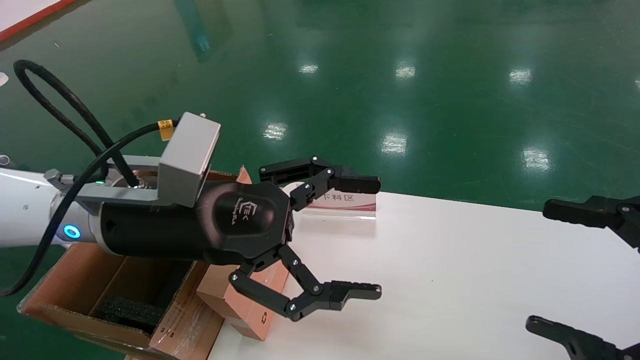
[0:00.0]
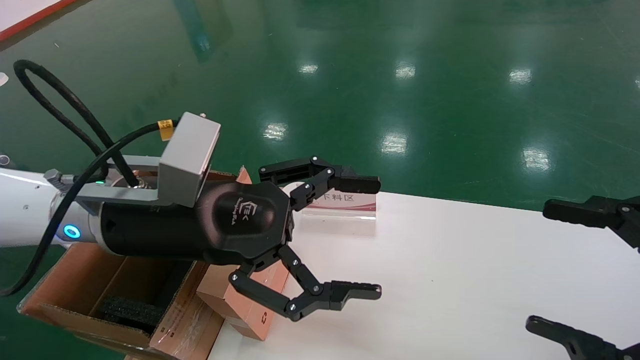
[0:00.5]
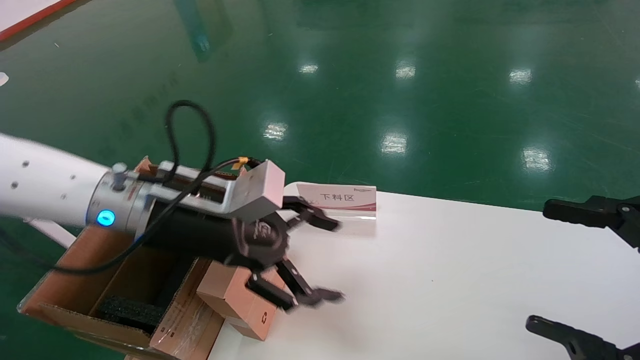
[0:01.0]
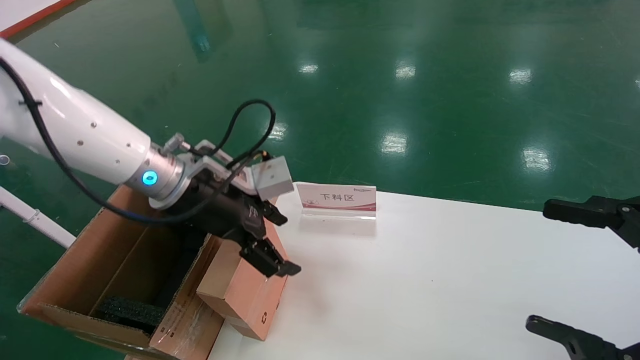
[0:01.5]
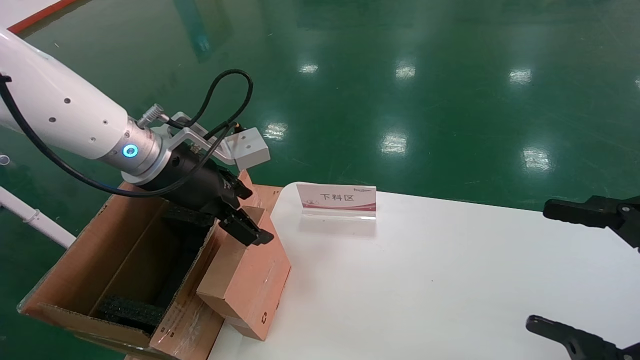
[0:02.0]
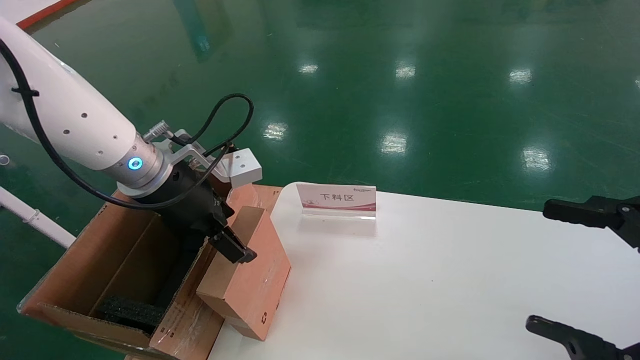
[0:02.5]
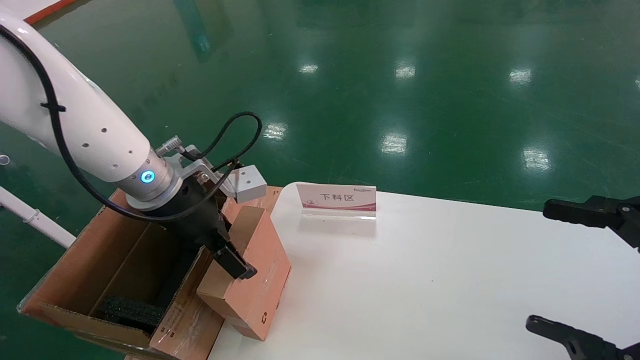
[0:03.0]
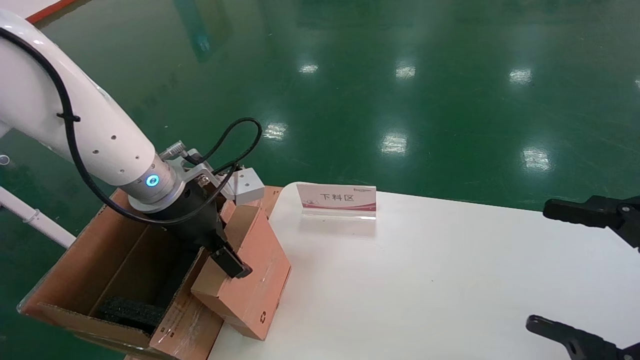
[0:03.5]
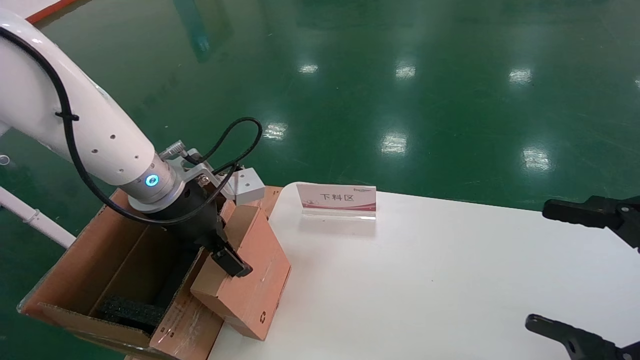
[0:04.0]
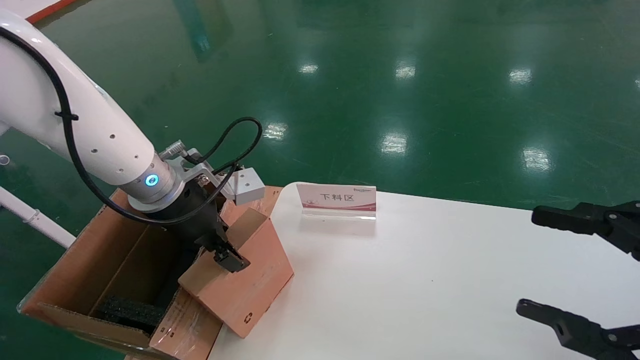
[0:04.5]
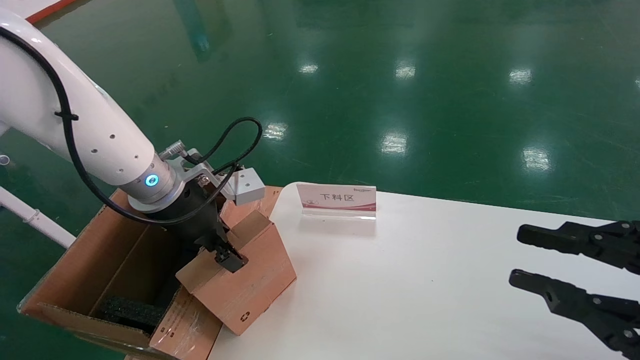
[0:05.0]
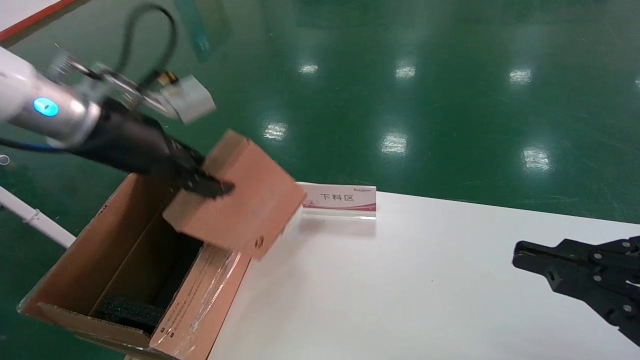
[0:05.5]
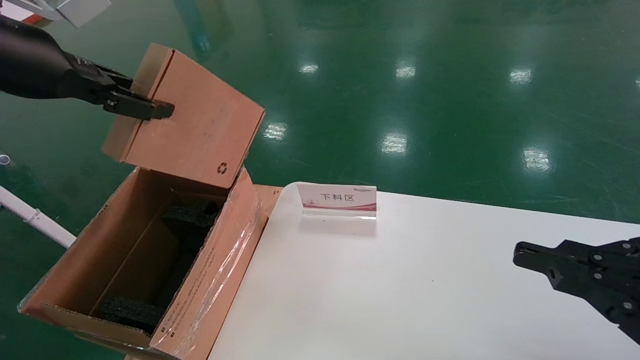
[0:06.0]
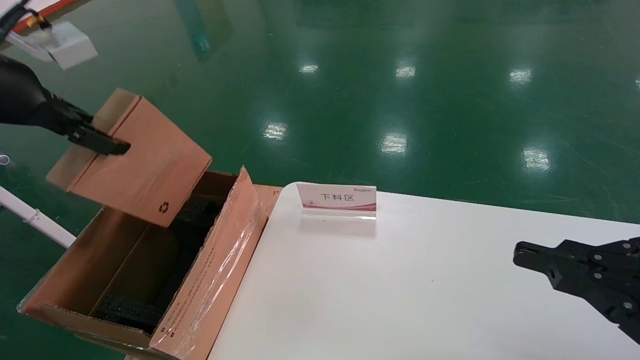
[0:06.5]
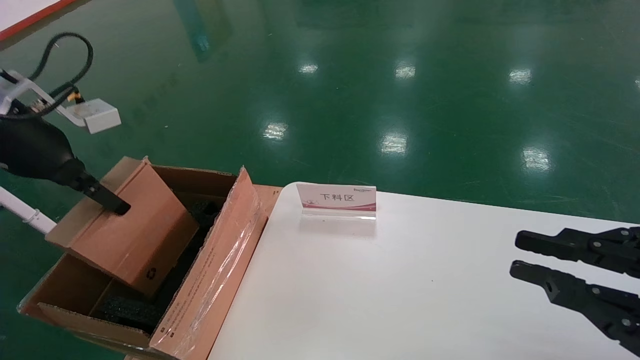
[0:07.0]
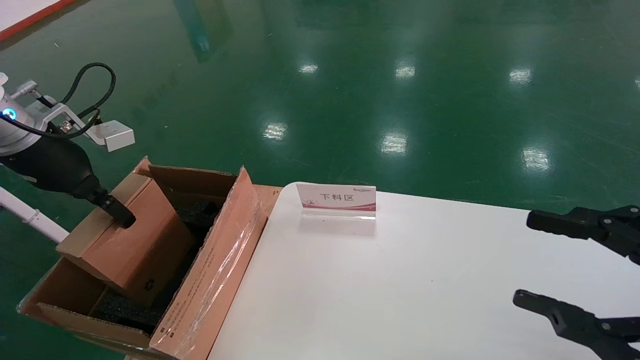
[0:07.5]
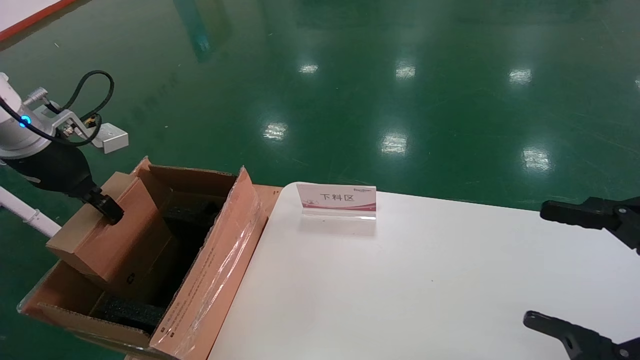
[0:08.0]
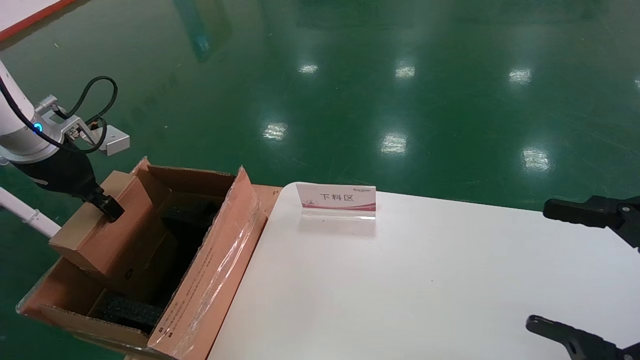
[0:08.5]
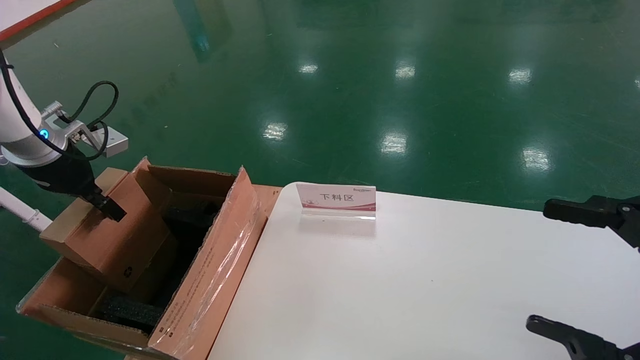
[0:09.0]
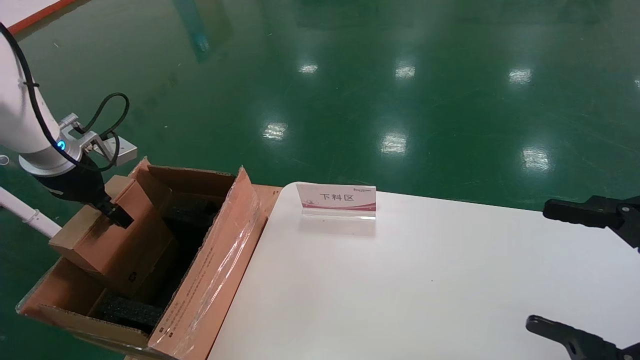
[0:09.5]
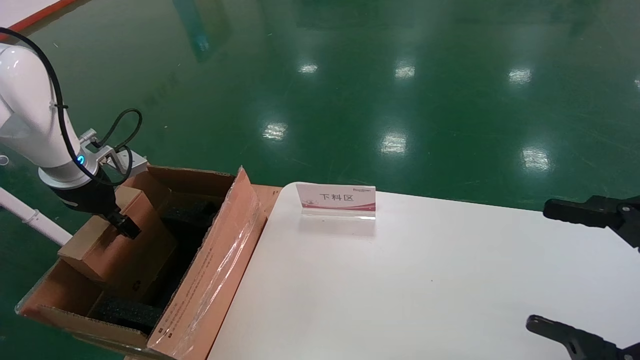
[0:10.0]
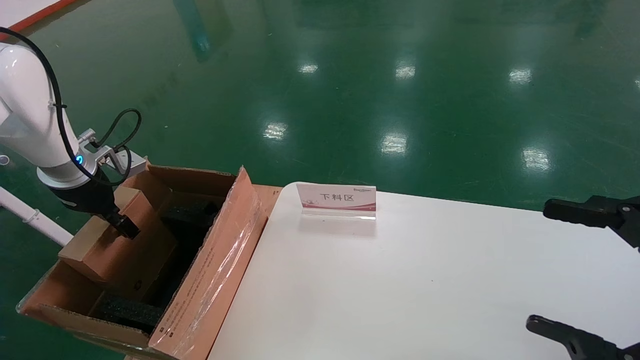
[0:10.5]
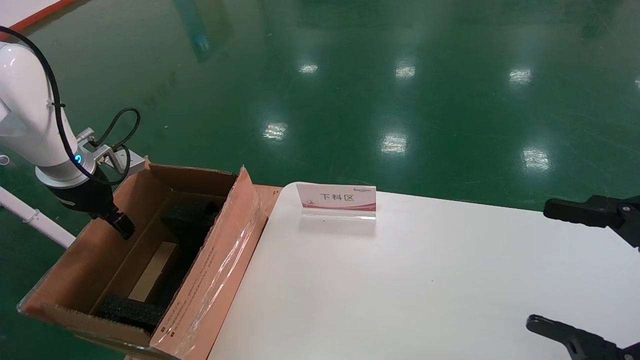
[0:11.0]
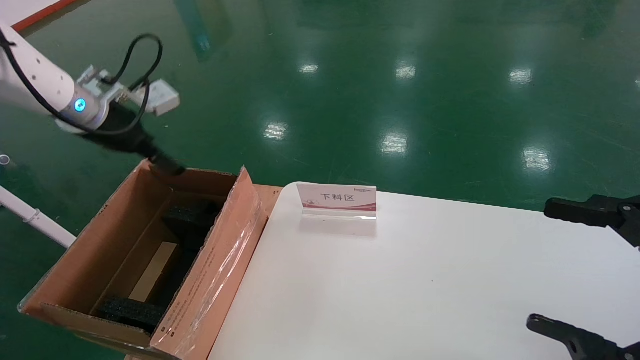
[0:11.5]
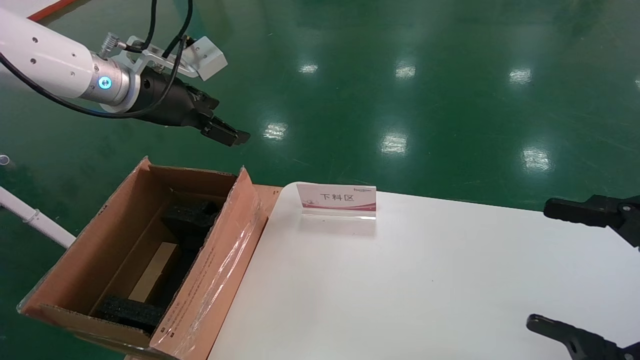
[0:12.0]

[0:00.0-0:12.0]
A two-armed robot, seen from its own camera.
Task of the whole recording: pick up the small cardboard box and load it into the large cardboard box.
Step, 0:01.0 to 0:05.5: Pick up the mouse and power cord box.
0:00.0 to 0:02.0: The left gripper goes some 10 cm forward.
0:02.0 to 0:04.0: The grippers stay close to where they were, moving slightly.
0:04.0 to 0:06.0: The right gripper closes up; the left gripper is displaced upward, to the left and backward by about 25 cm, and closes.
0:06.0 to 0:08.0: The left gripper is displaced downward, forward and to the left by about 15 cm, while the right gripper opens its fingers.
0:08.0 to 0:10.0: The left gripper travels downward by about 5 cm.
0:10.0 to 0:12.0: The left gripper heads to the right and upward, covering about 20 cm, and opens its fingers.

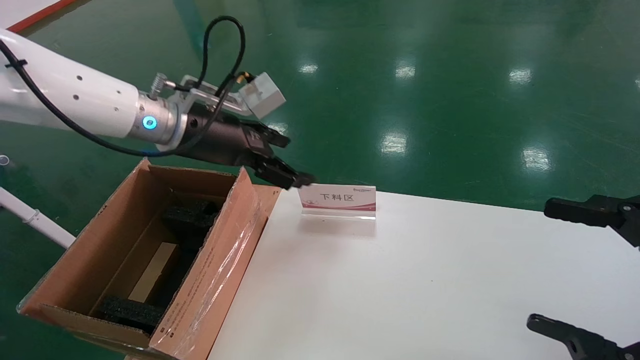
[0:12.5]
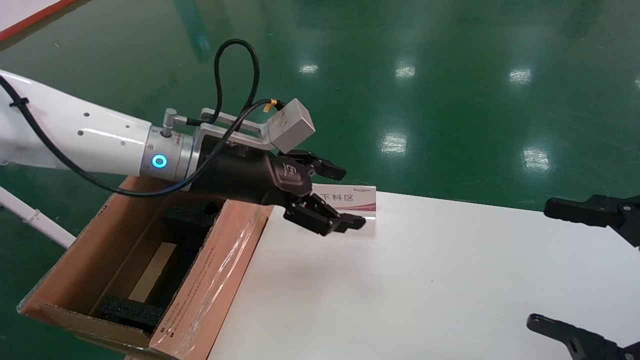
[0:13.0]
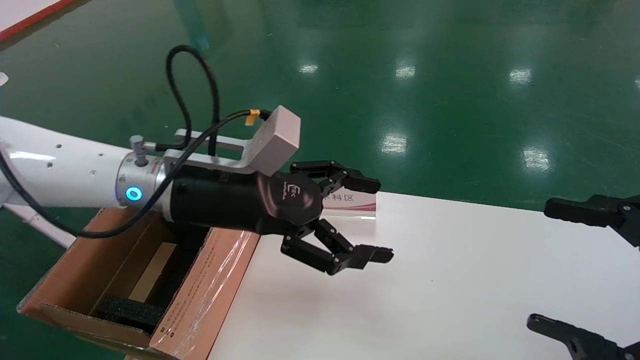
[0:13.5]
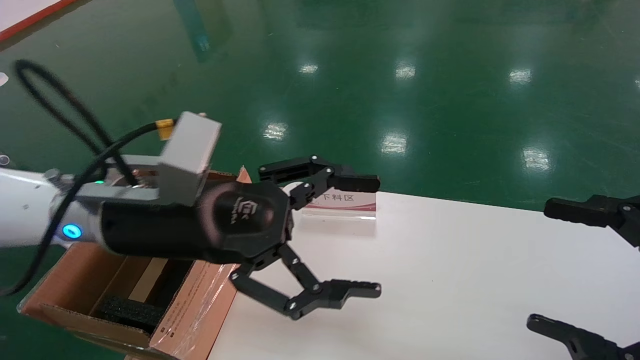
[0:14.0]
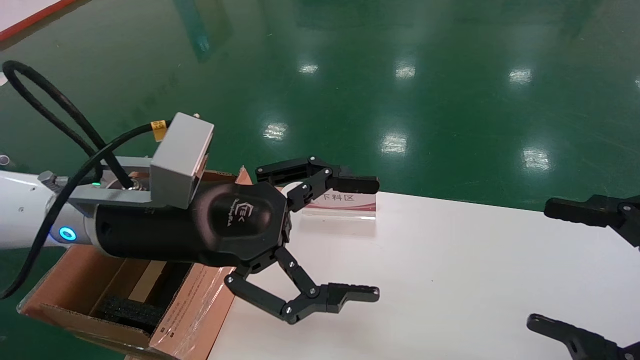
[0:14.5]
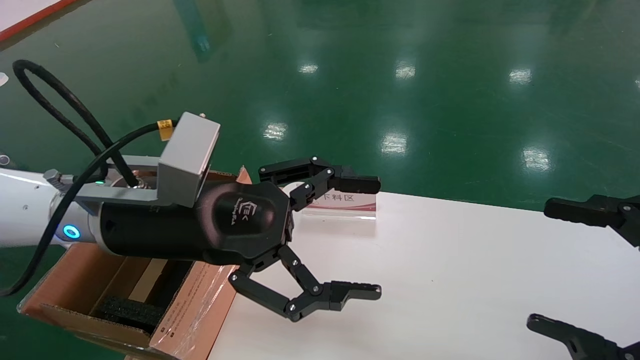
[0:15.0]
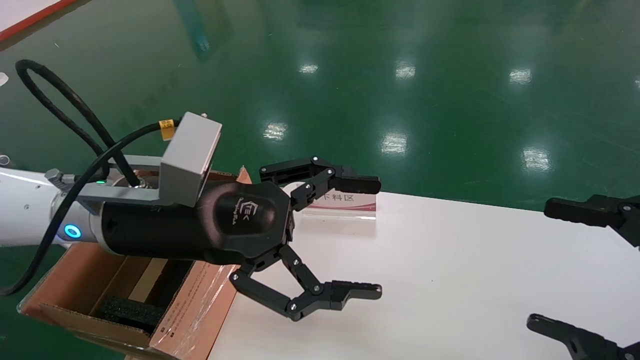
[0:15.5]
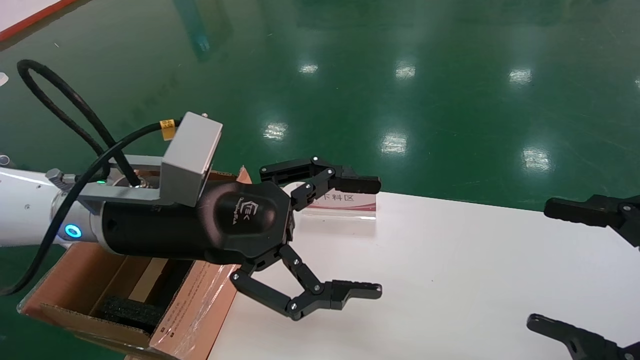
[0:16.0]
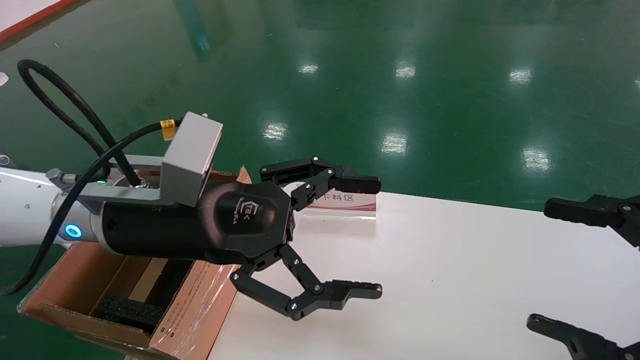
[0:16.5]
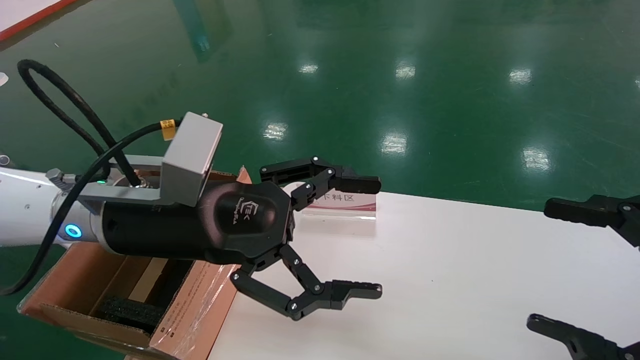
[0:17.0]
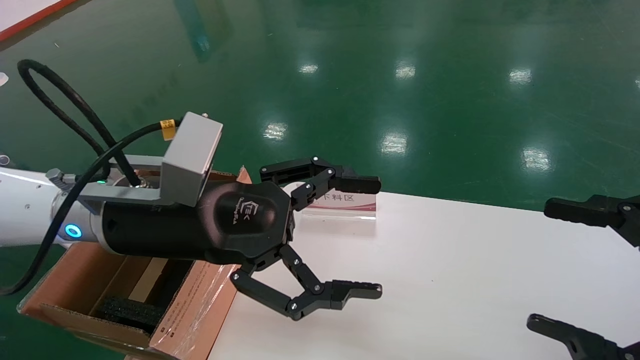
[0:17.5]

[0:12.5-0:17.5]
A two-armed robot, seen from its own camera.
Task of the whole recording: pick up the small cardboard box and load it into the large cardboard box.
0:12.5 to 0:15.0: The left gripper is displaced backward by some 15 cm.
0:15.0 to 0:17.5: Neither gripper changes place.
